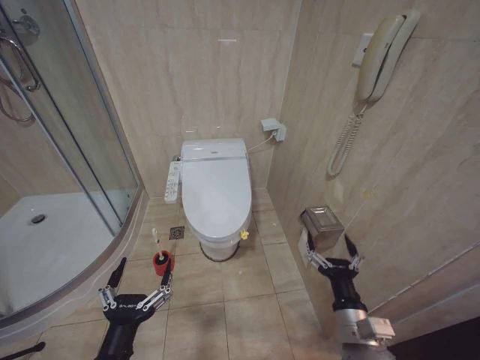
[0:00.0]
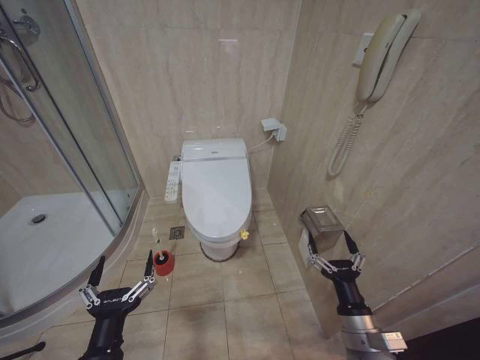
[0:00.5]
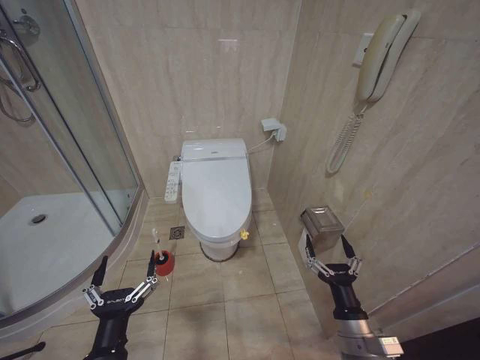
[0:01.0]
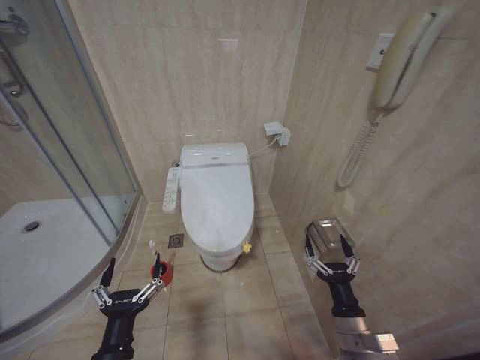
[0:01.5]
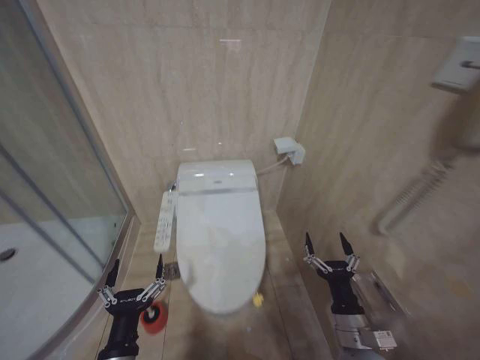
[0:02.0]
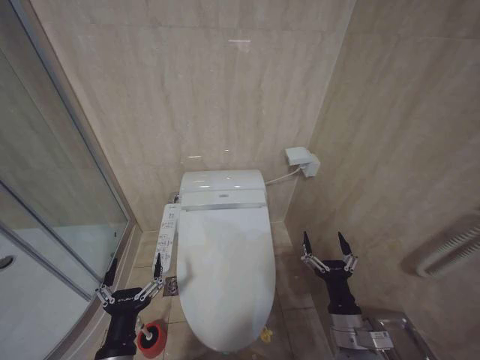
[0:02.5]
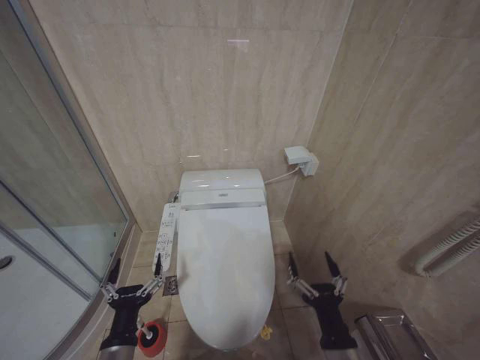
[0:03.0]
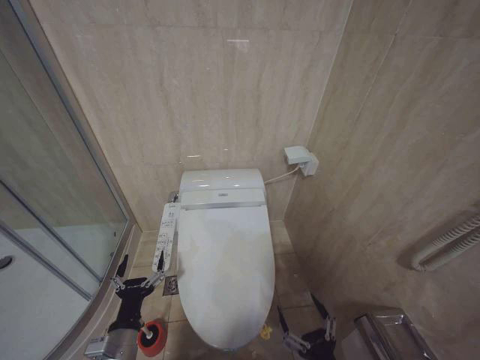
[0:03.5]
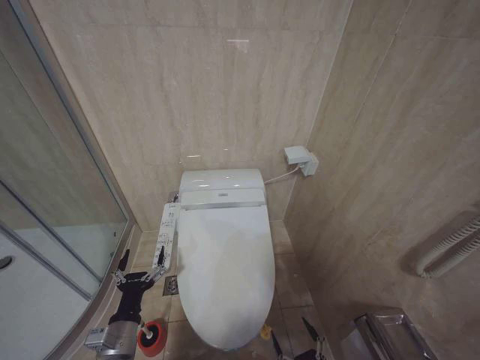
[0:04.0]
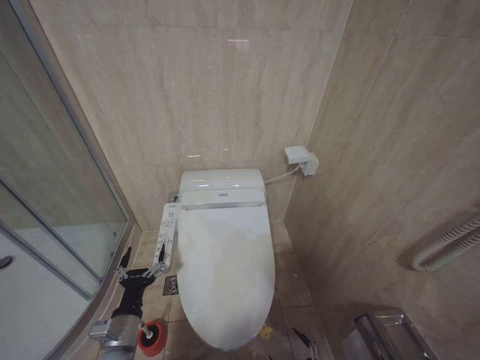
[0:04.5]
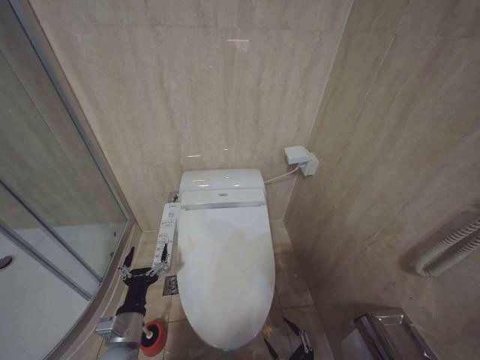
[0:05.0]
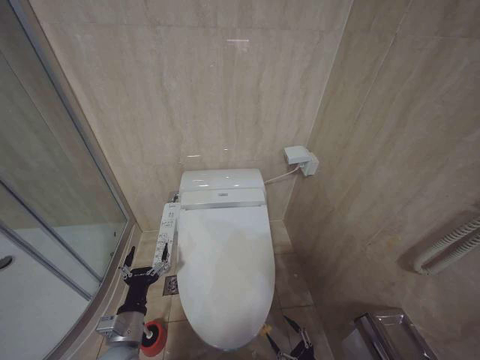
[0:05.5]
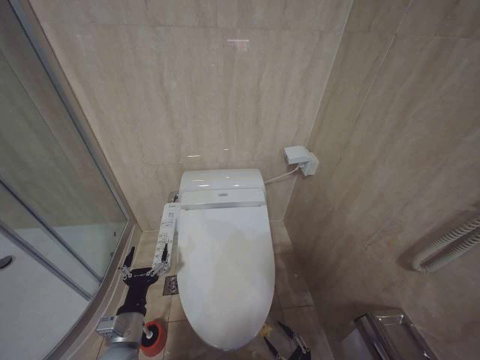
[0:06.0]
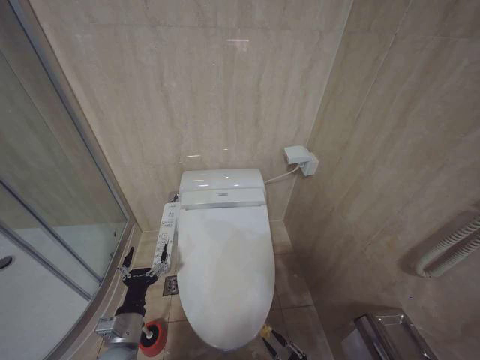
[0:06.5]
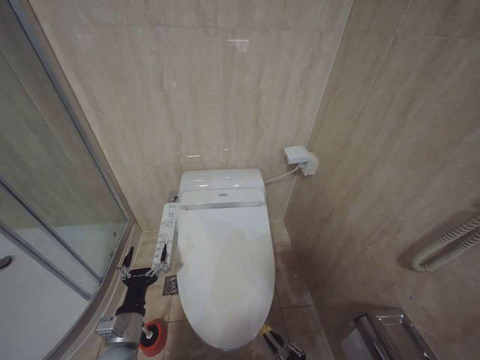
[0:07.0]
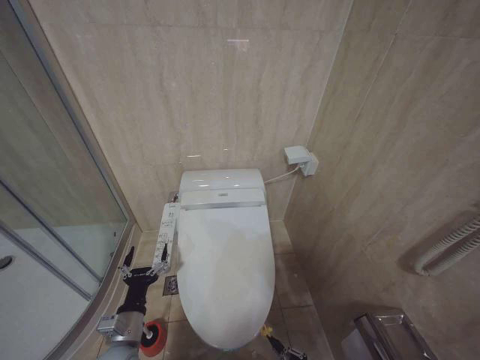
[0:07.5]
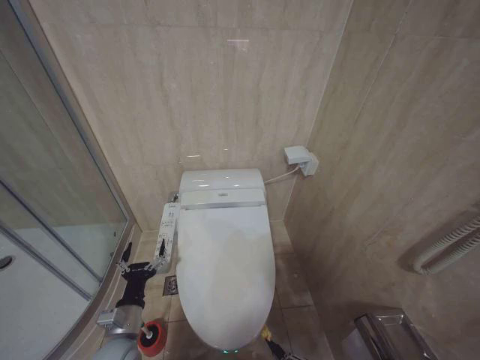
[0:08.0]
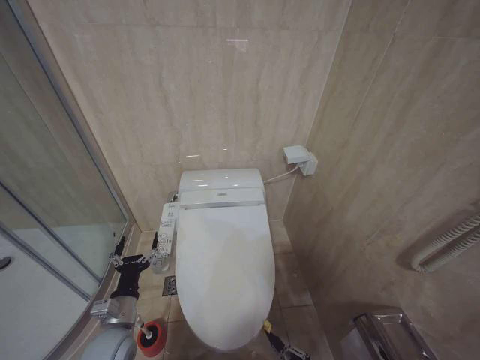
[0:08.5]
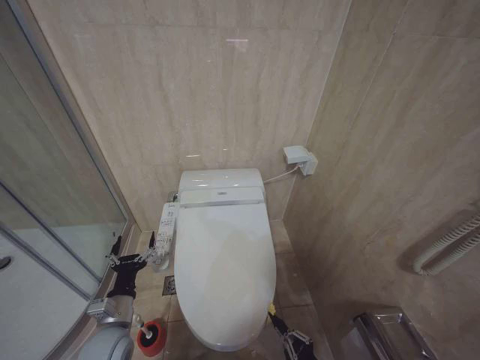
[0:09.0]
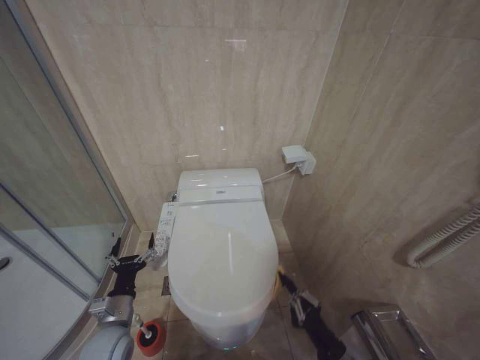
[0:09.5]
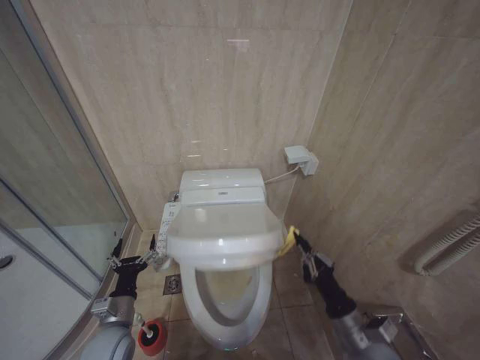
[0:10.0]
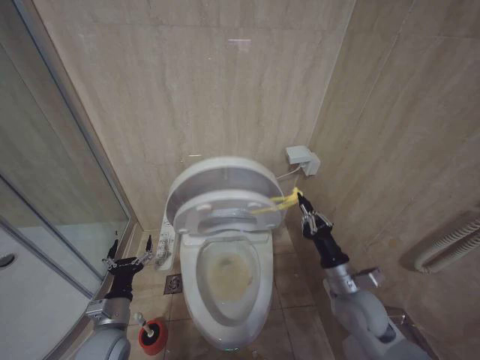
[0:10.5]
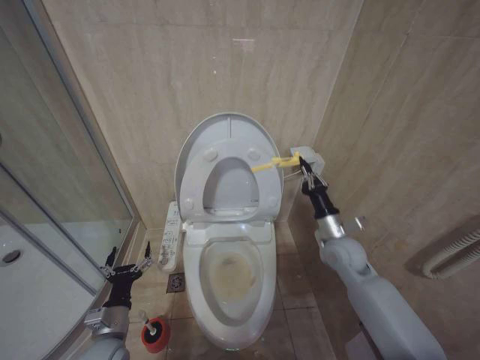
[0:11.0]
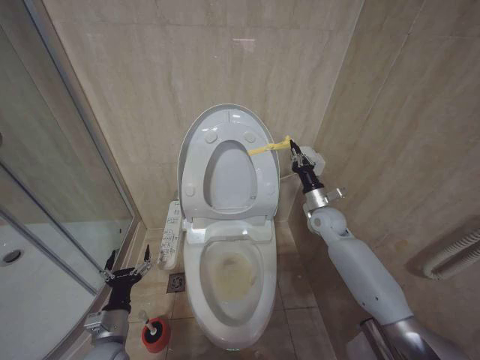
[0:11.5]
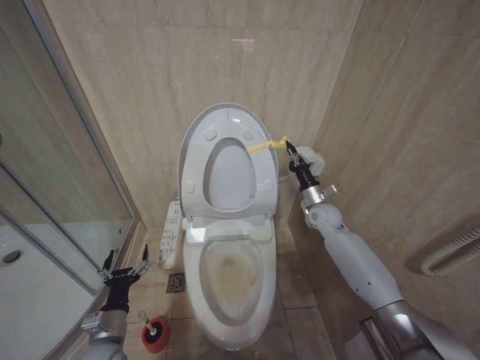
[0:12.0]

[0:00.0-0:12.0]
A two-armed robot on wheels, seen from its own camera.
Task of the whole recording: Open the toilet lid, clean the toilet bowl with a toilet brush, close the toilet lid, and flush.
0:02.0 to 0:04.0: The left gripper heads forward, covering about 5 cm. The right gripper shifts some 15 cm backward and downward.
0:04.0 to 0:06.0: The right gripper heads downward, to the right and forward, covering roughly 15 cm.
0:08.0 to 0:10.0: The right gripper heads upward and forward, covering approximately 20 cm.
0:10.0 to 0:12.0: The right gripper moves forward, about 35 cm.

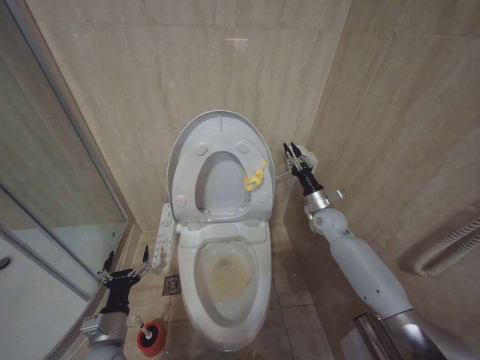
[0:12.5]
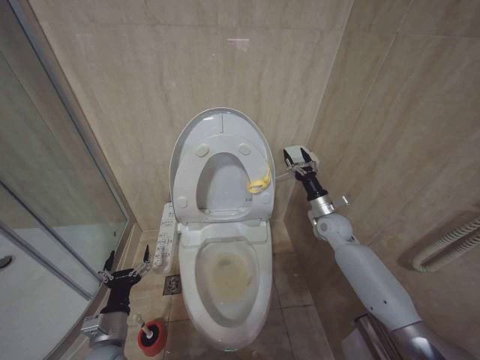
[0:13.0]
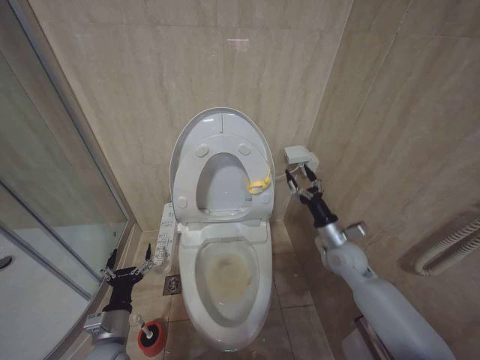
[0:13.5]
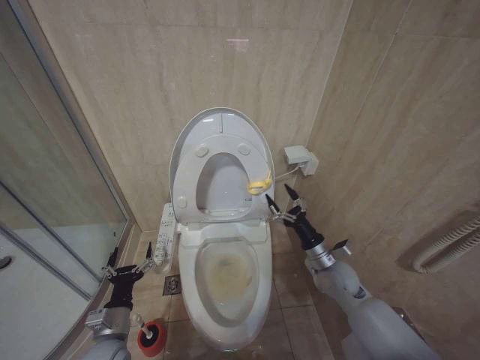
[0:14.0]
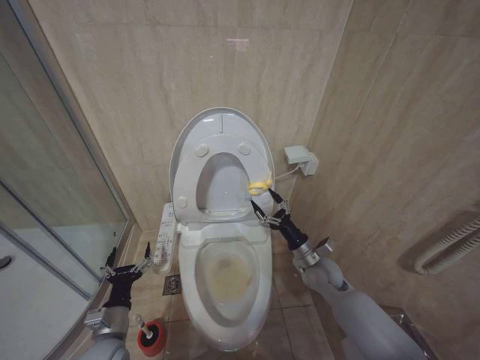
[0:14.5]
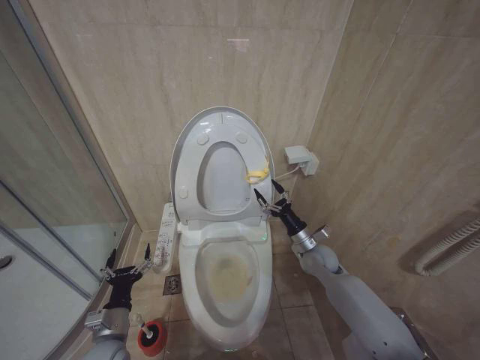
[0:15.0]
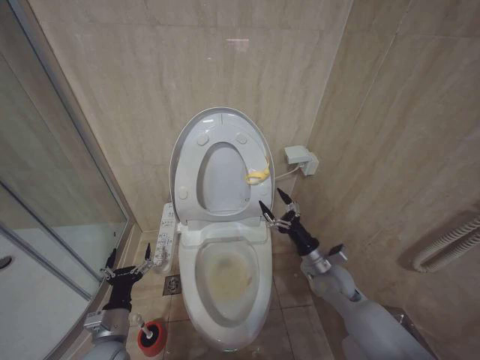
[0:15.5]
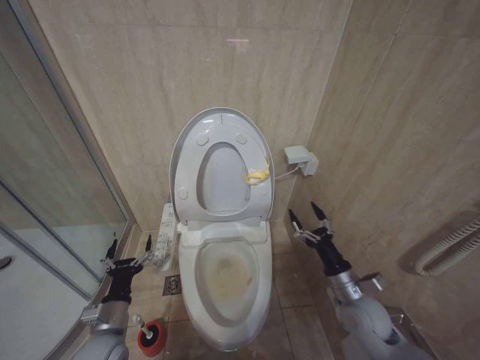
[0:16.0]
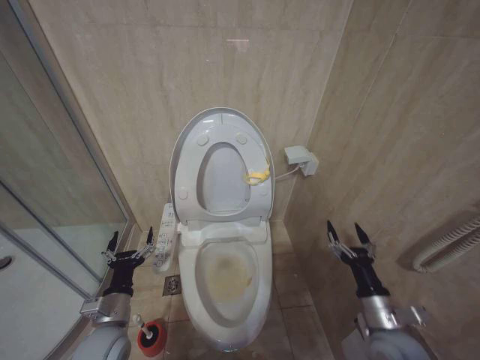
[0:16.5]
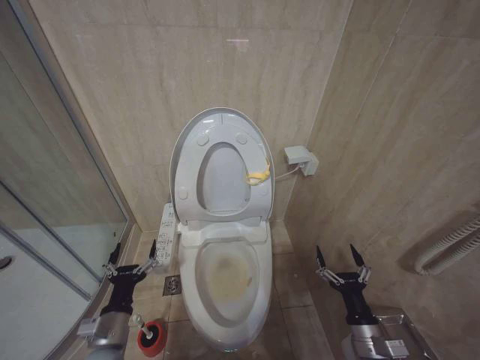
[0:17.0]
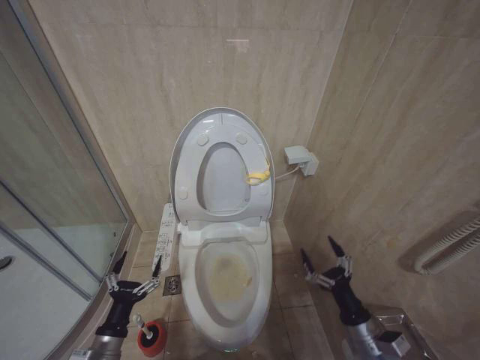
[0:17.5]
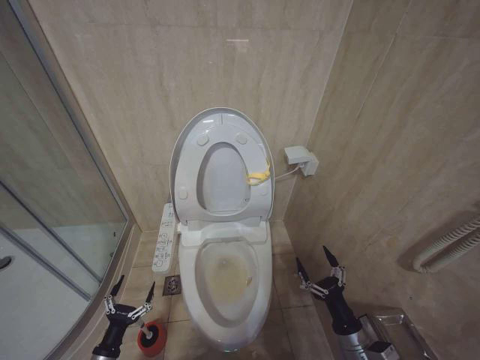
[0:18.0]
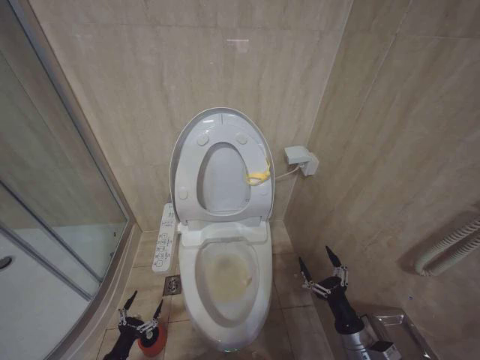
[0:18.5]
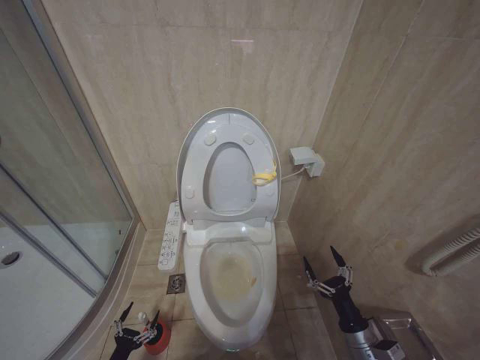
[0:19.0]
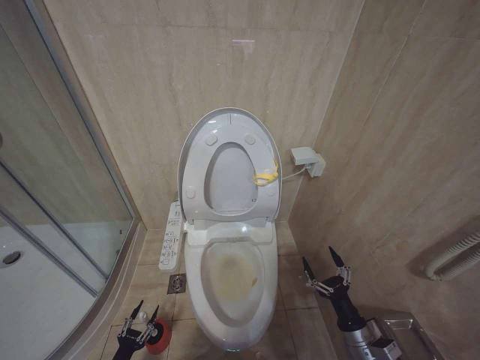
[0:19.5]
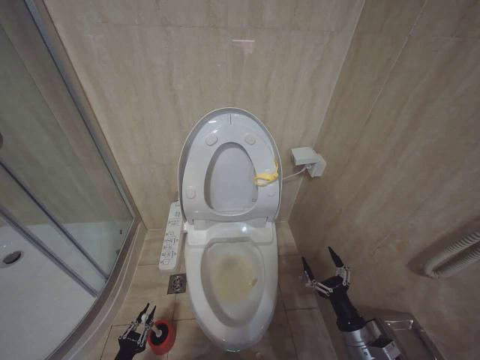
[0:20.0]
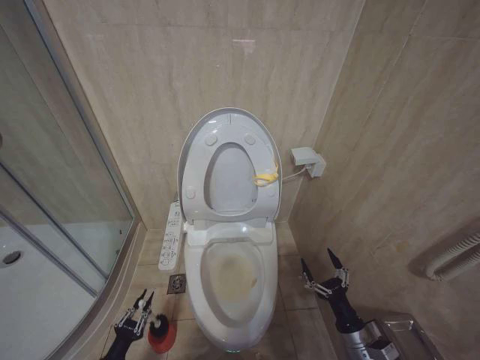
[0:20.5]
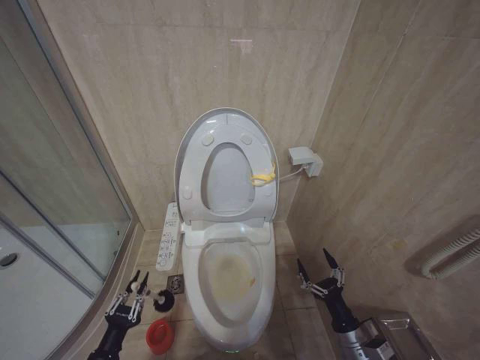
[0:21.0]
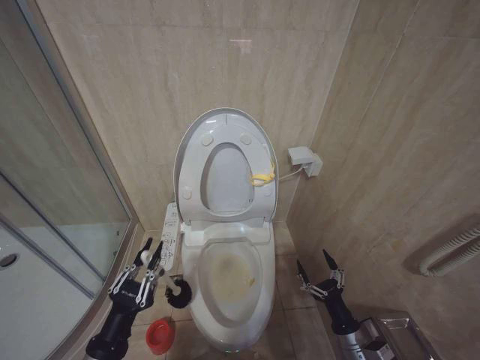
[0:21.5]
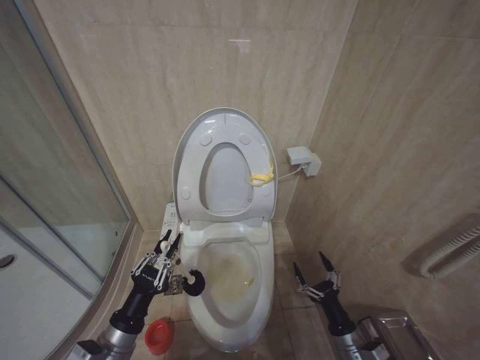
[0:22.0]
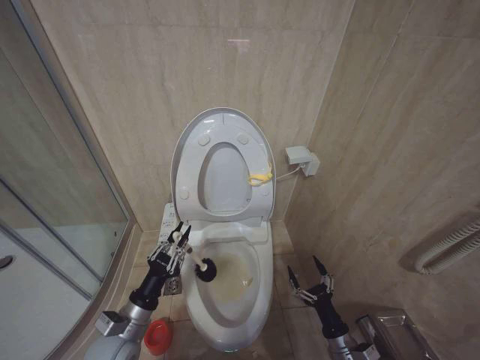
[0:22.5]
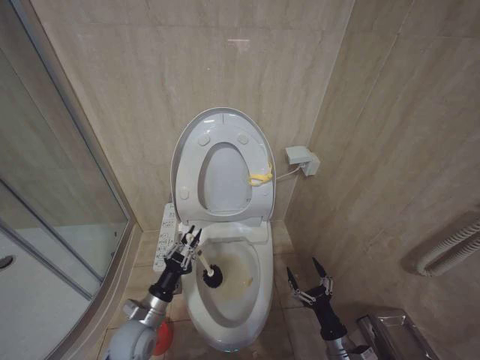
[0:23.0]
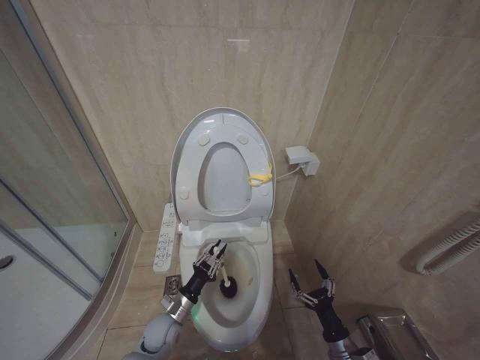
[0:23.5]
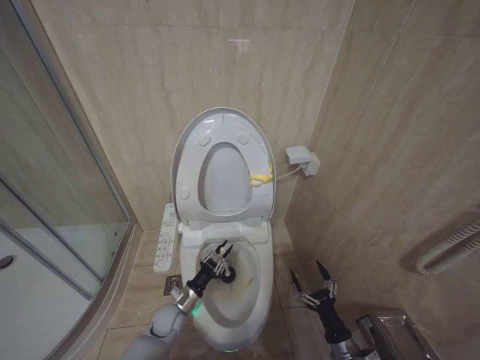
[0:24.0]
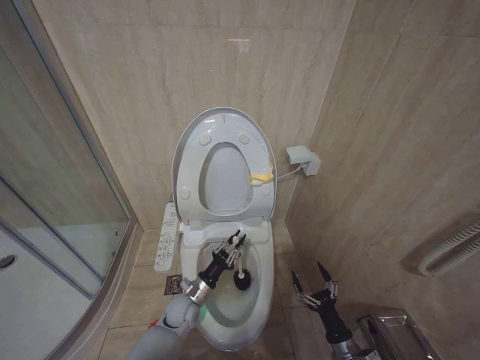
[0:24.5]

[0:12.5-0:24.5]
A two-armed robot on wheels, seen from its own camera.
Task of the whole recording: Open the toilet lid, clean the toilet bowl with a toilet brush, close the toilet lid, and flush.
0:12.5 to 0:14.5: The right gripper moves backward, downward and to the left, approximately 15 cm, and opens up.
0:14.5 to 0:16.5: The right gripper travels backward and to the right by some 20 cm.
0:16.5 to 0:18.5: The right gripper shifts some 10 cm downward; the left gripper is displaced downward and to the left by roughly 25 cm.
0:18.5 to 0:20.5: The left gripper closes.
0:20.5 to 0:22.5: The left gripper is displaced upward and to the right by some 25 cm.
0:22.5 to 0:24.5: The left gripper heads forward, downward and to the right, covering approximately 20 cm.

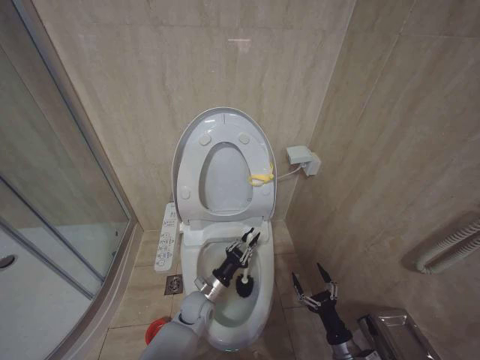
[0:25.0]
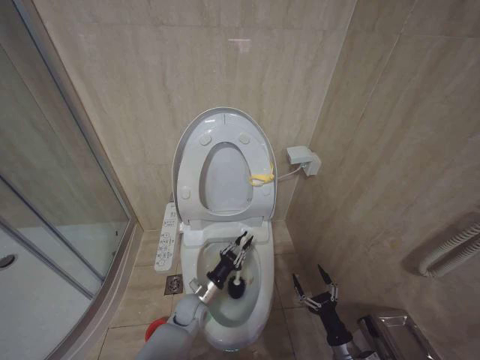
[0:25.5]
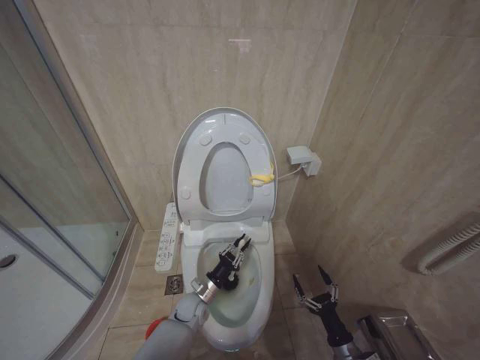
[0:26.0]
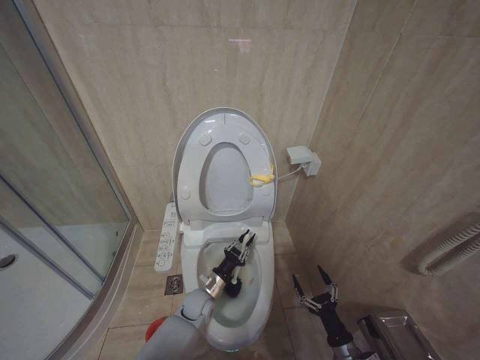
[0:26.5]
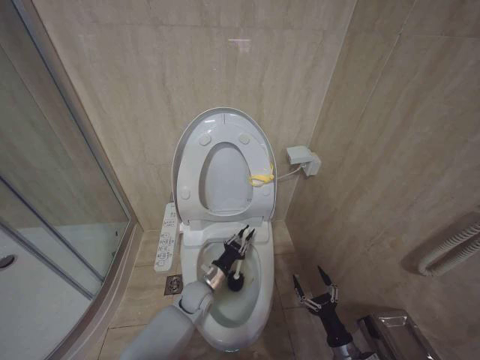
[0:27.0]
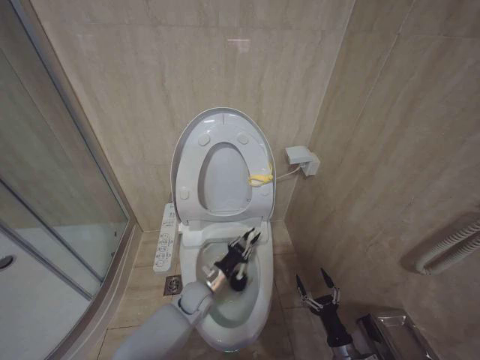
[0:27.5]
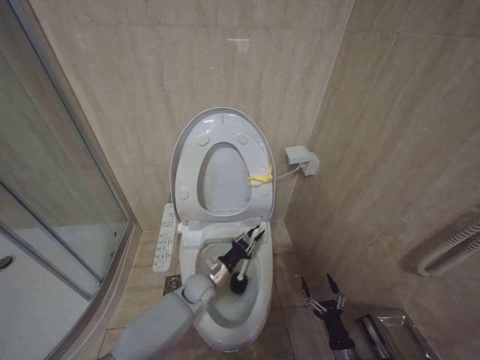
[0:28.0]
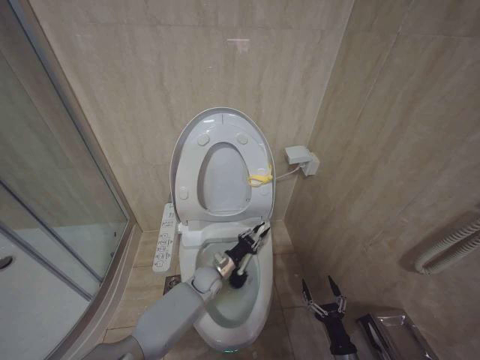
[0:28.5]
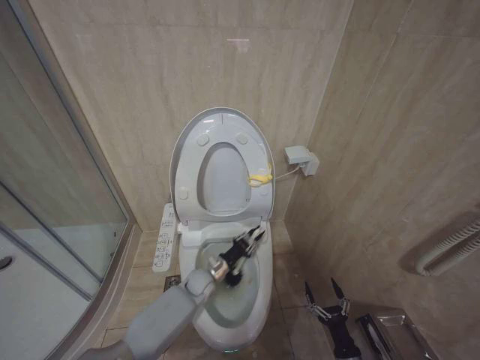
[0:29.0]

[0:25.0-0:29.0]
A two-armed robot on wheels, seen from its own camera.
Task of the whole recording: Open the toilet lid, clean the toilet bowl with a toilet brush, close the toilet lid, and flush.
0:25.0 to 0:27.0: The left gripper shifts by some 5 cm.
0:27.0 to 0:29.0: The left gripper ends up some 5 cm from where it was.
